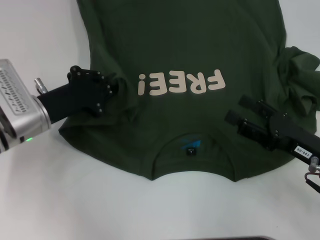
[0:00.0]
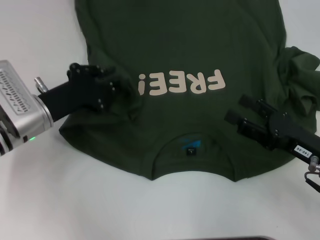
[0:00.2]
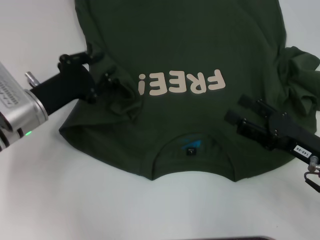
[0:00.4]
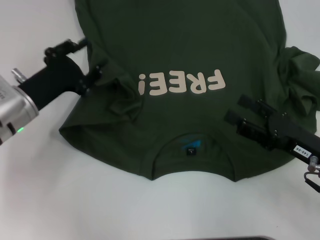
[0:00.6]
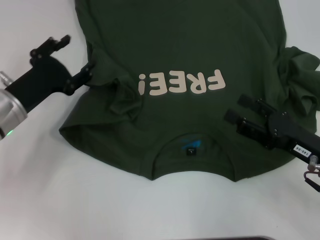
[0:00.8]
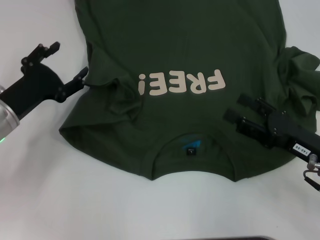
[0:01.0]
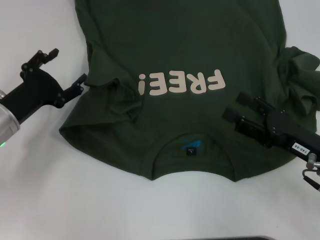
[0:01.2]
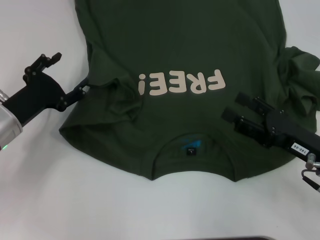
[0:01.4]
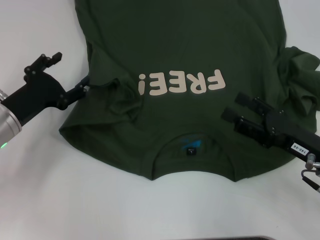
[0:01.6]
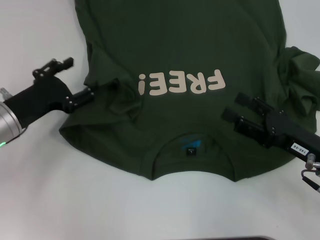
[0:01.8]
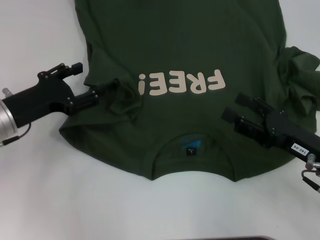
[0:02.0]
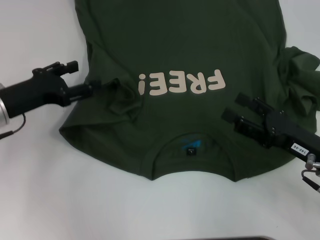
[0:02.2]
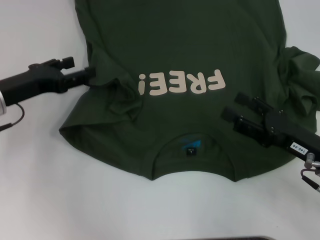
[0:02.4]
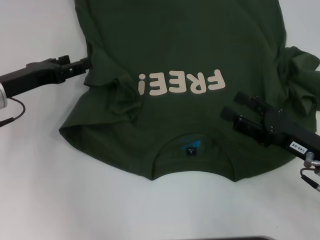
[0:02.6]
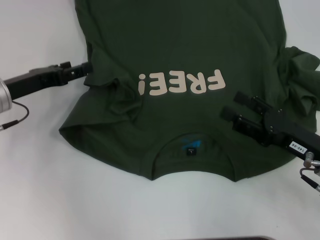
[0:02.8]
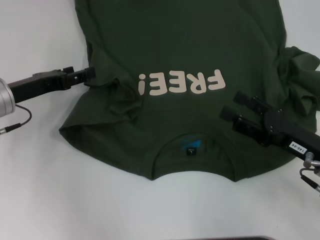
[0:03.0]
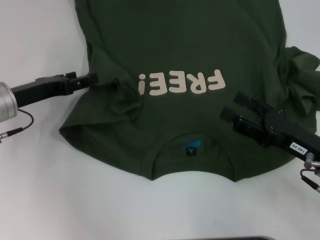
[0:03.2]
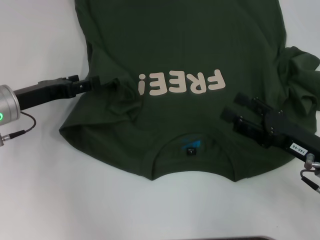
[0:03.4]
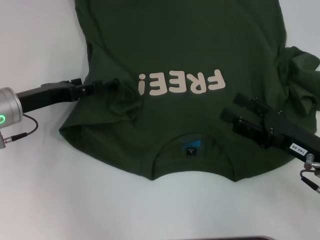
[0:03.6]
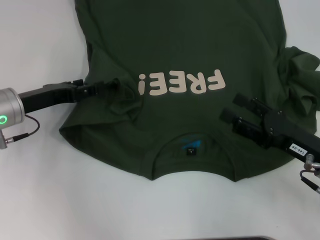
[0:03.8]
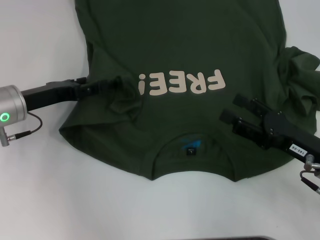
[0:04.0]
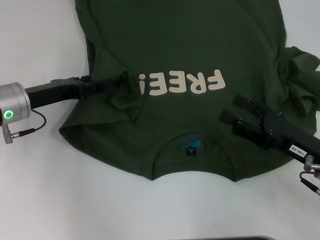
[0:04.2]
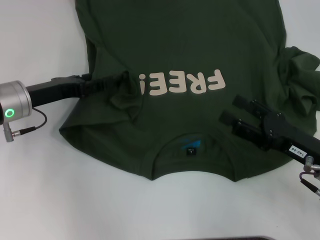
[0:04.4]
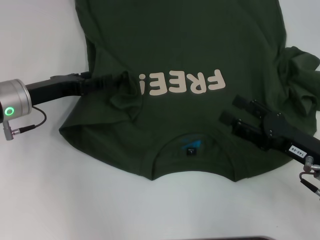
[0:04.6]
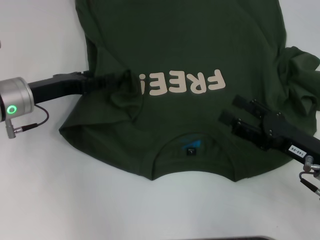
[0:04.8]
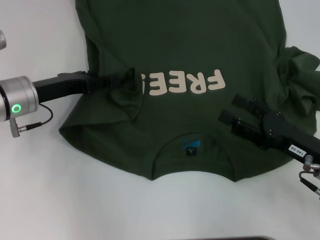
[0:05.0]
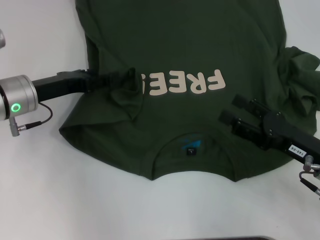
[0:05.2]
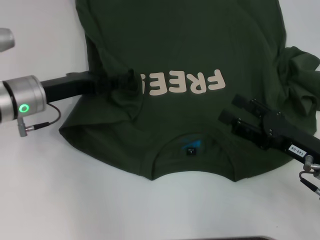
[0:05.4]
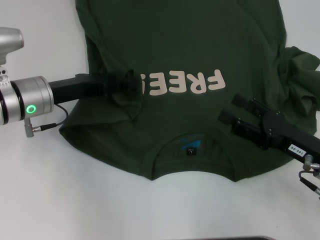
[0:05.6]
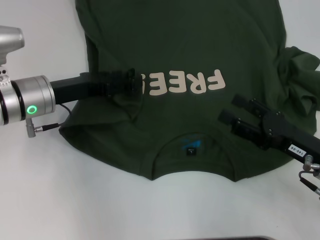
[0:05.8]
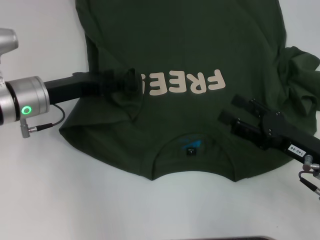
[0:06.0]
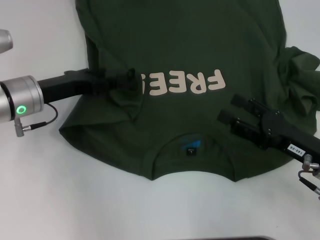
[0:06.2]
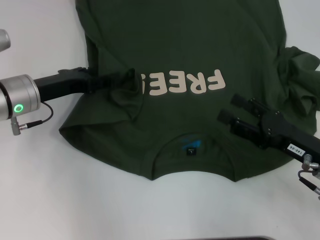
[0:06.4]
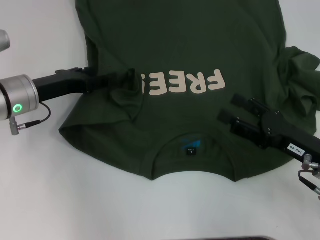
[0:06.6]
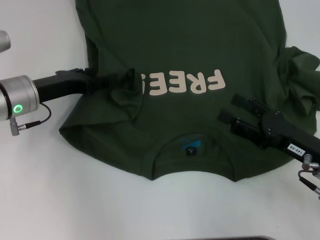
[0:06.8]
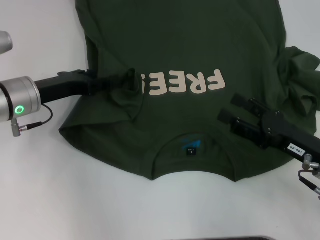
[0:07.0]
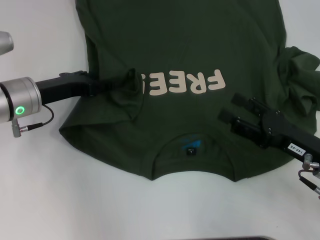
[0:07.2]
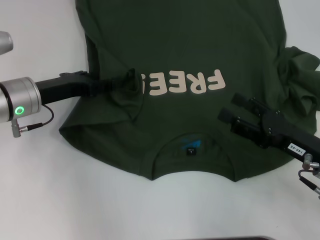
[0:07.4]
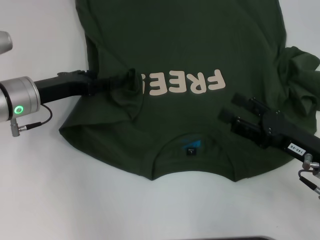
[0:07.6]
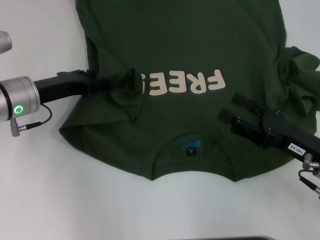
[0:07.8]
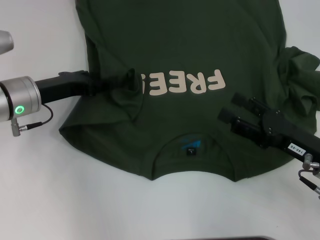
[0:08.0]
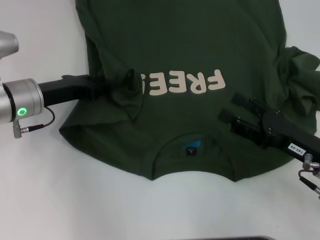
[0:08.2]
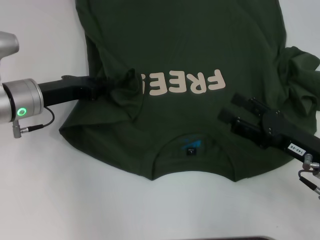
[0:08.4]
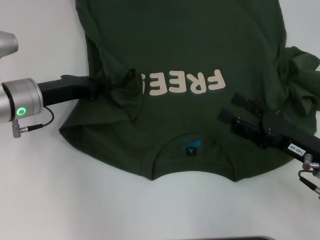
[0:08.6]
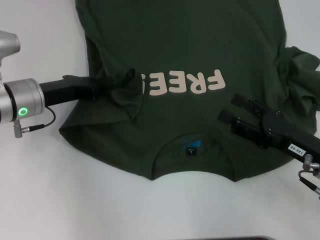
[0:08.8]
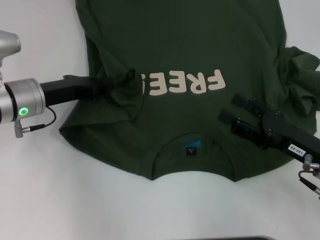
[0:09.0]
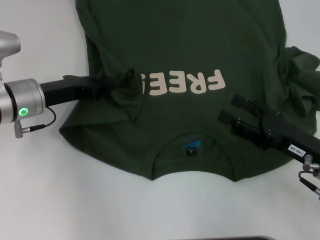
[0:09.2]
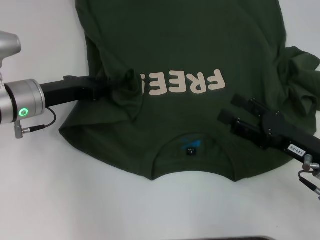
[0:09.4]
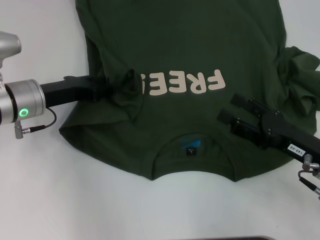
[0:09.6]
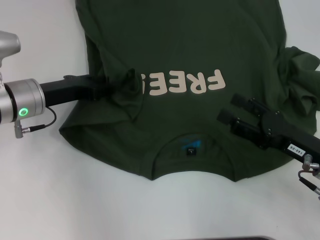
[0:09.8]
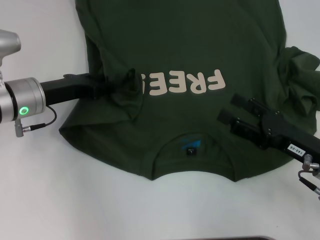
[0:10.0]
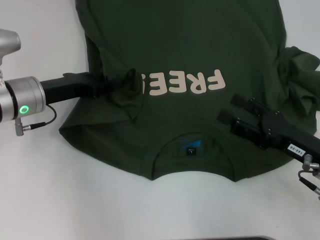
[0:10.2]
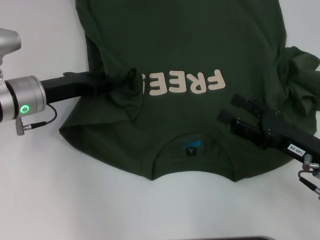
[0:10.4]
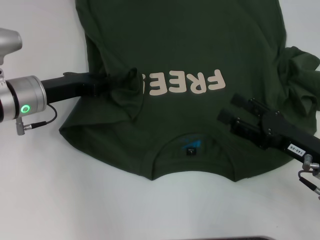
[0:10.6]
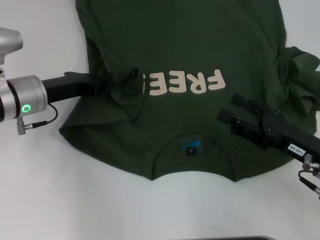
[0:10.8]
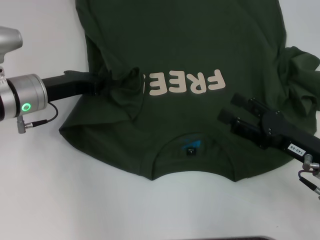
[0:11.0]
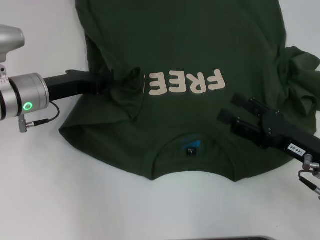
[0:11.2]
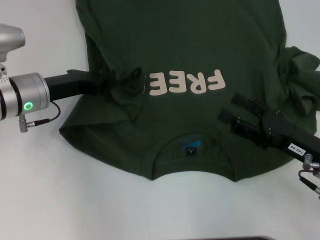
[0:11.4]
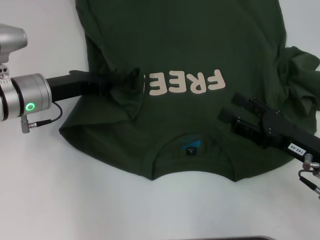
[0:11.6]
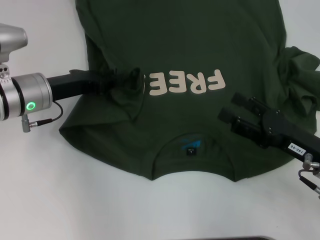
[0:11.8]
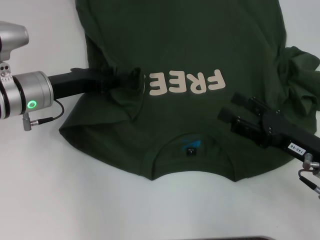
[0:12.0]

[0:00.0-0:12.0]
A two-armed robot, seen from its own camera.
0:00.0 to 0:01.6: The left gripper opens.
0:01.6 to 0:03.0: The left gripper changes place by roughly 5 cm.
0:03.0 to 0:07.6: The grippers make only small movements.
0:07.6 to 0:09.0: The left gripper closes its fingers.
0:09.0 to 0:10.4: The left gripper opens.
0:10.4 to 0:12.0: The left gripper closes, then opens again.

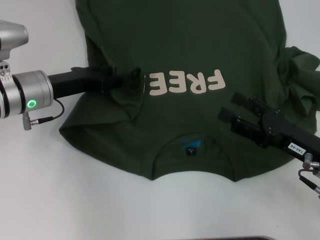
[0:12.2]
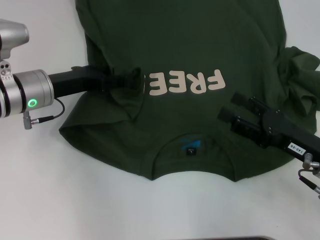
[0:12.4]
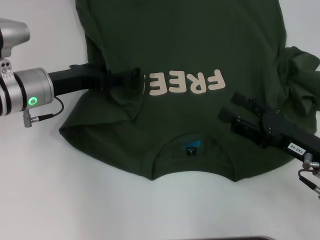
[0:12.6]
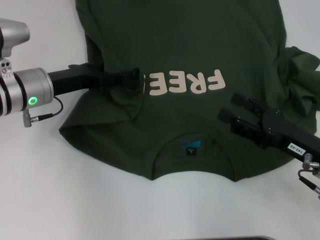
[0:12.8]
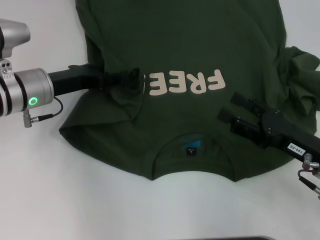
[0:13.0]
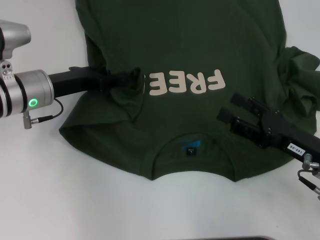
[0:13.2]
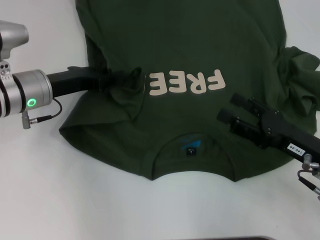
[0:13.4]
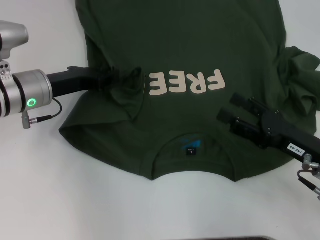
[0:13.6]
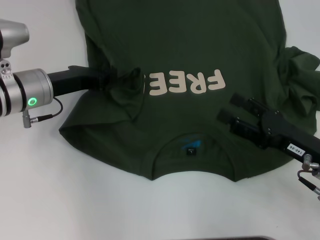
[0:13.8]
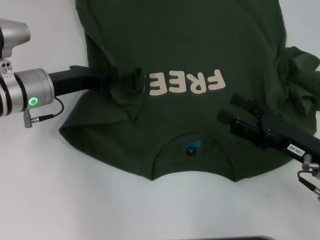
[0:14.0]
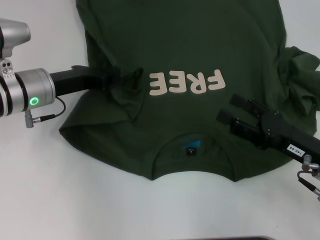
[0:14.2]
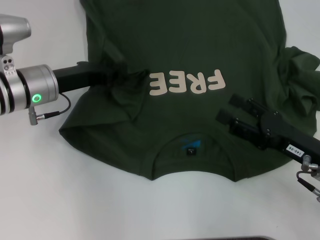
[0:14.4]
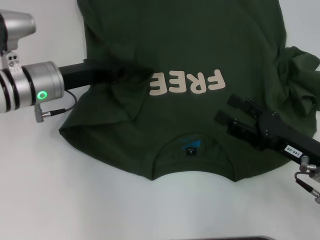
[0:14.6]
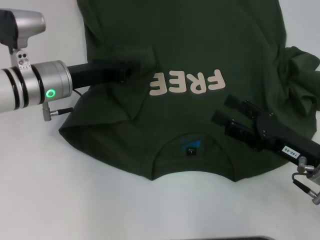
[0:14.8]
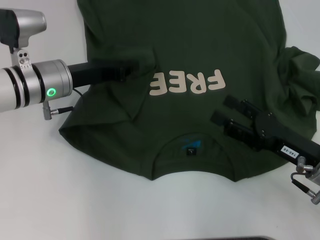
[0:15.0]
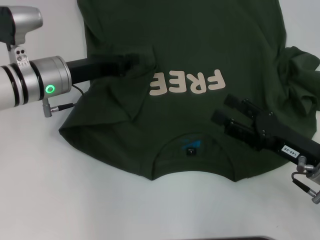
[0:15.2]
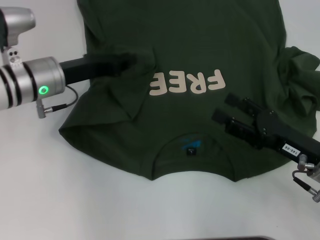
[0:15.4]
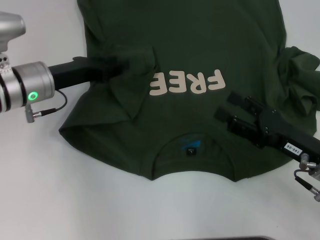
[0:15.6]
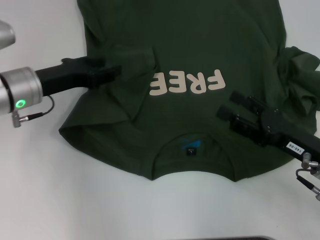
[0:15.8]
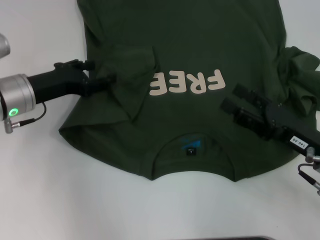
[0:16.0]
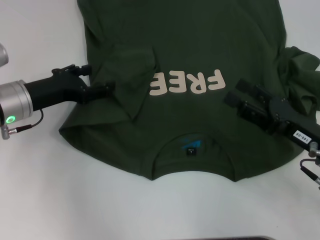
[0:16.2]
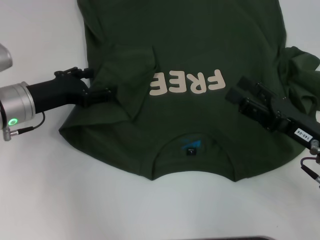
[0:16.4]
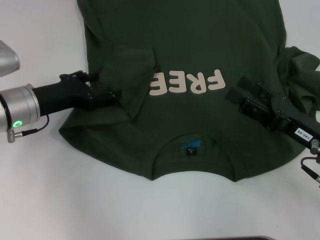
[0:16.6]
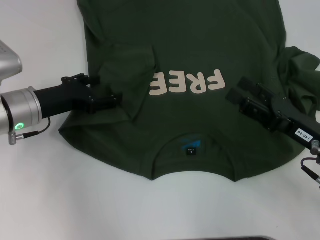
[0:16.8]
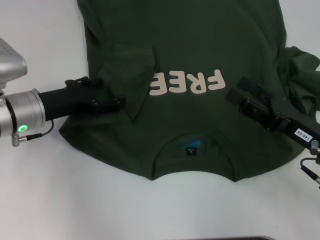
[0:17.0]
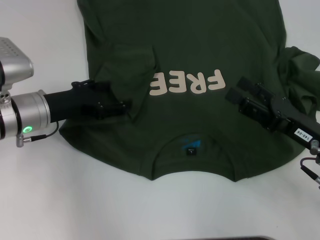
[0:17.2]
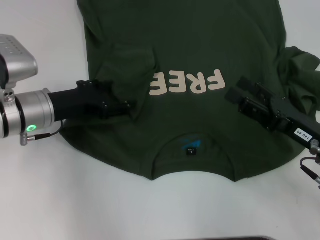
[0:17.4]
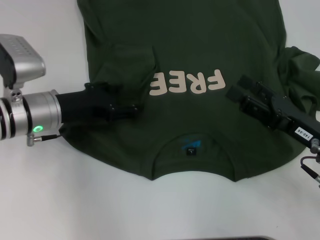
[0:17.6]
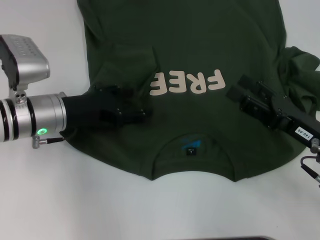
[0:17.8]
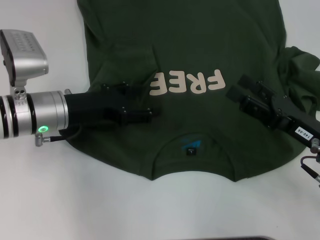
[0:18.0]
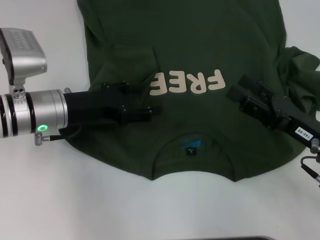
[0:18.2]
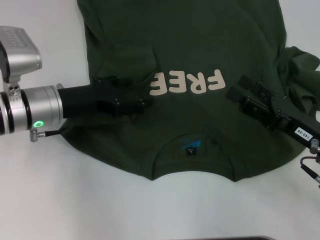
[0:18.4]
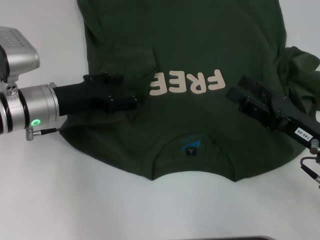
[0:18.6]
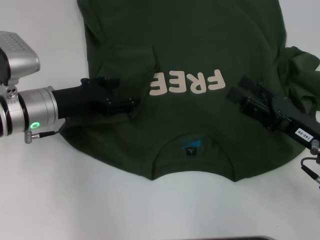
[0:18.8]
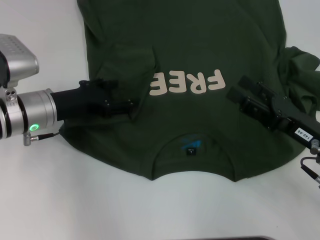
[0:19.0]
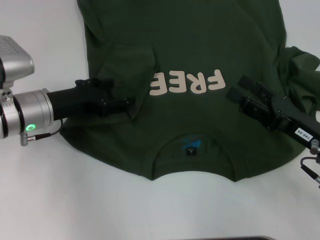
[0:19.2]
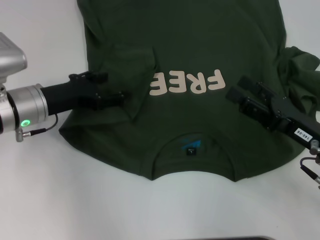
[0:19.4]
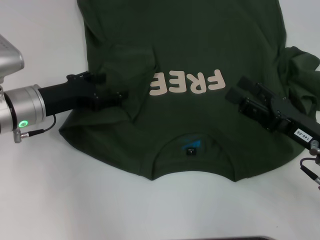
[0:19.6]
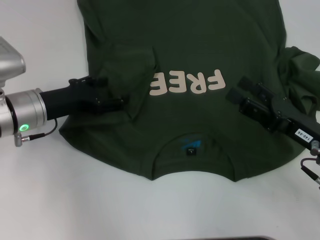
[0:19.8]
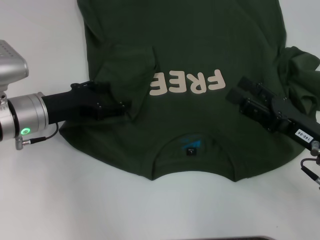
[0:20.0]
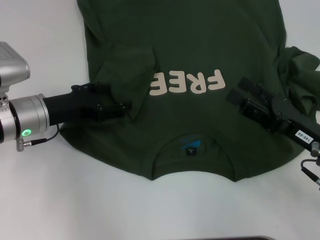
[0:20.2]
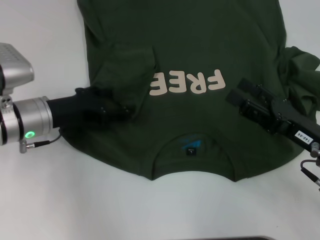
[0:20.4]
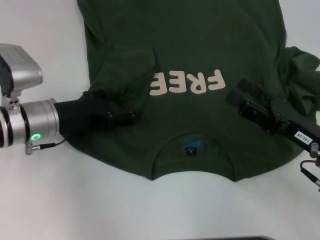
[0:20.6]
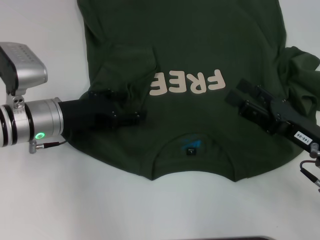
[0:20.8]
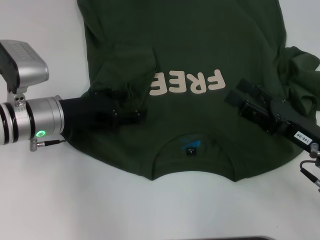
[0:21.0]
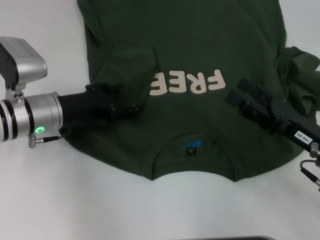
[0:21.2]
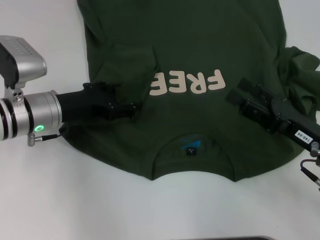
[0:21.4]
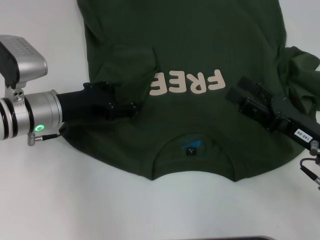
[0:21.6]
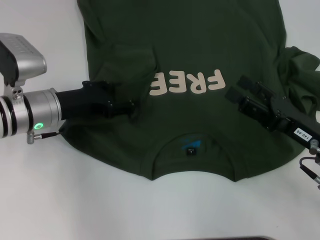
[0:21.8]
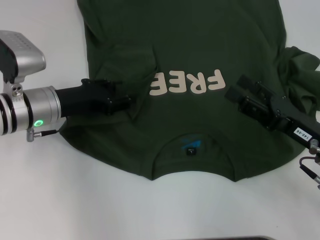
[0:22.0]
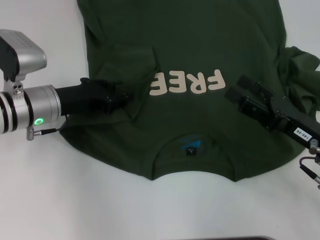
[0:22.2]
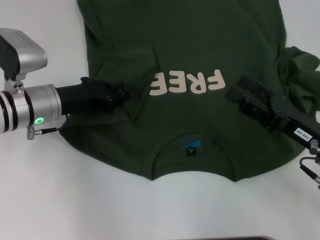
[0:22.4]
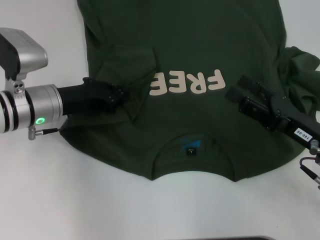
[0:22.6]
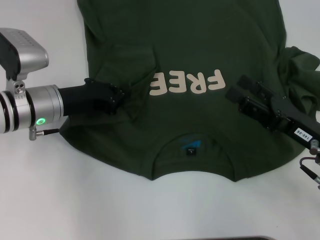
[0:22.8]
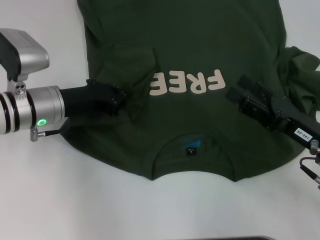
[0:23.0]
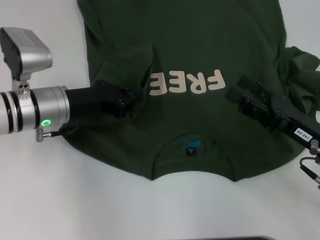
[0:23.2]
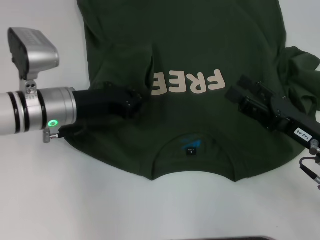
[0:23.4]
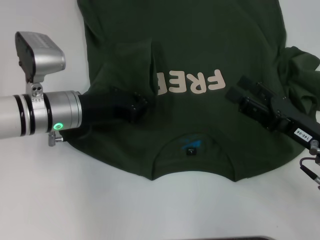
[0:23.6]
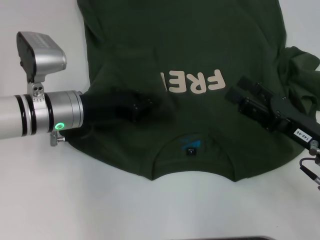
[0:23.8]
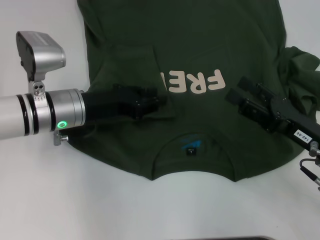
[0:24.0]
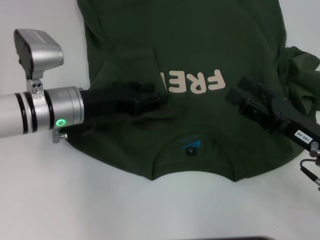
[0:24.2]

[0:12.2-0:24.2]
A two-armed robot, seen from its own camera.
0:12.2 to 0:13.8: The left gripper opens, then closes once more.
0:13.8 to 0:15.2: The grippers move only a little.
0:15.2 to 0:16.6: The left gripper ends up approximately 5 cm from where it was, and opens.
0:16.6 to 0:21.2: The grippers stay close to where they were, moving slightly.
0:21.2 to 0:22.6: The left gripper closes up.
0:22.6 to 0:24.2: The grippers move only a little.
